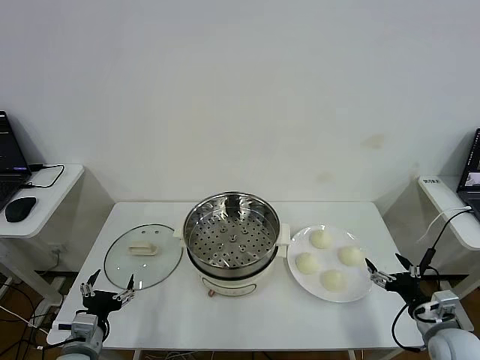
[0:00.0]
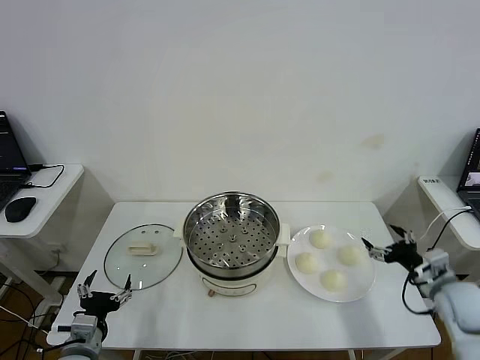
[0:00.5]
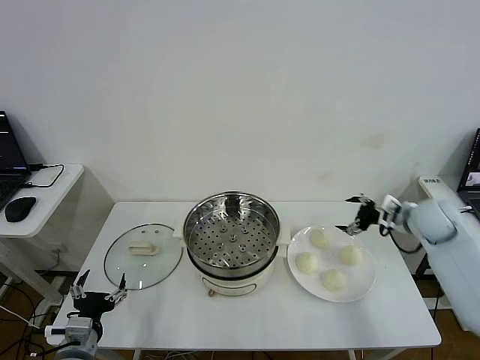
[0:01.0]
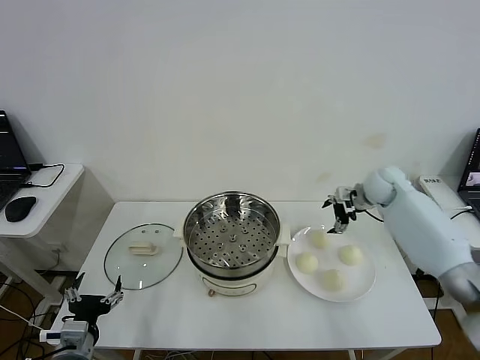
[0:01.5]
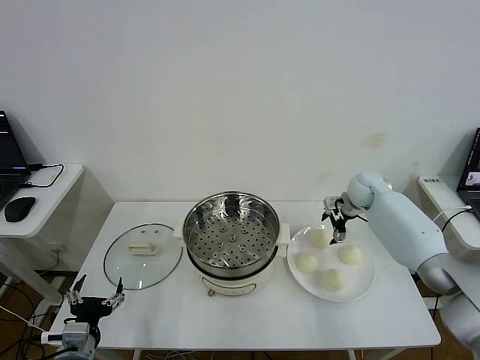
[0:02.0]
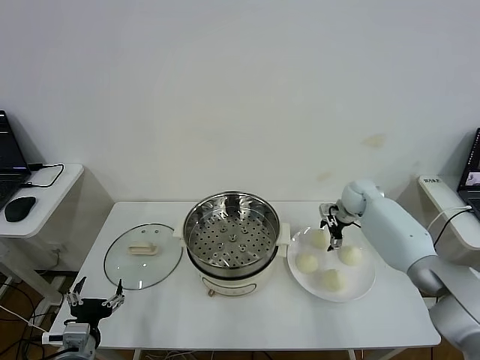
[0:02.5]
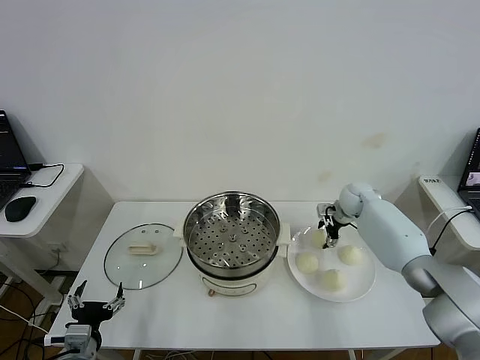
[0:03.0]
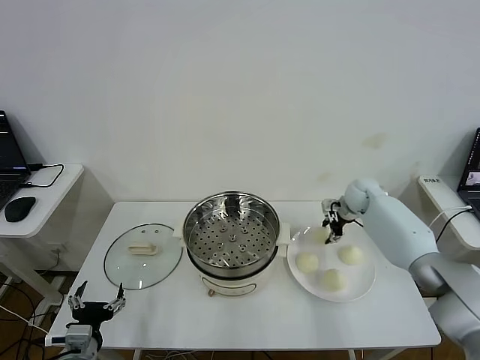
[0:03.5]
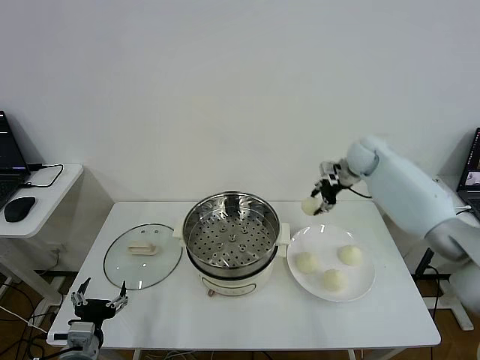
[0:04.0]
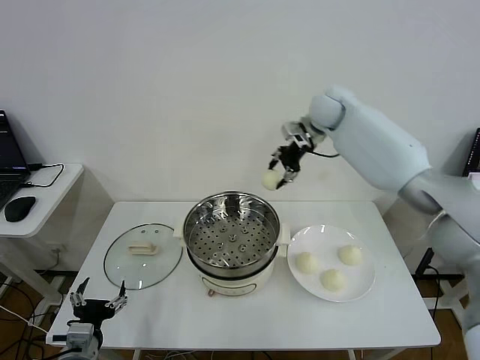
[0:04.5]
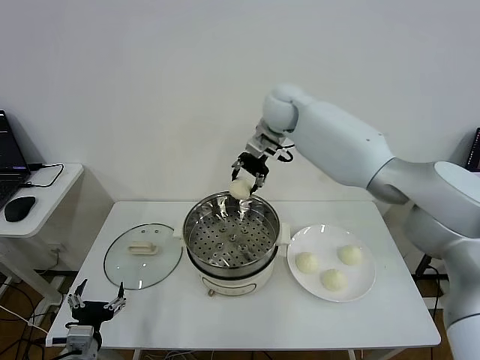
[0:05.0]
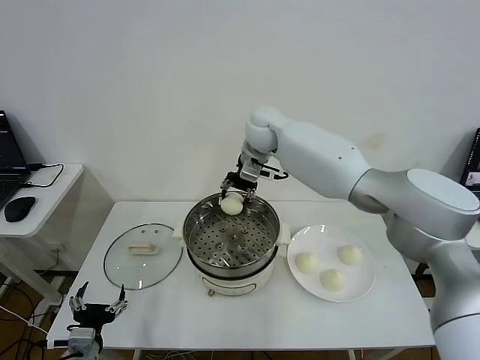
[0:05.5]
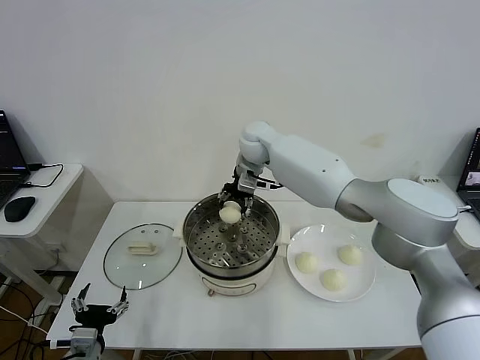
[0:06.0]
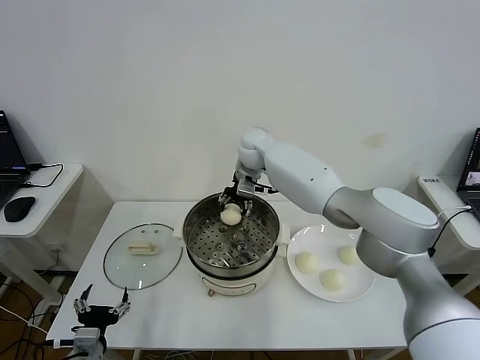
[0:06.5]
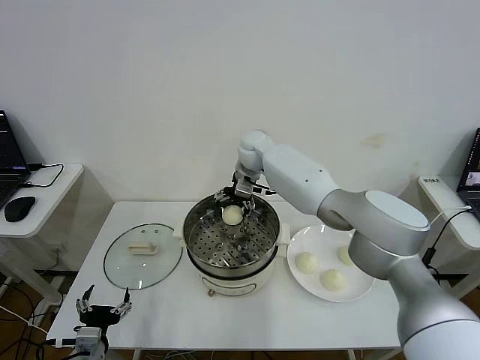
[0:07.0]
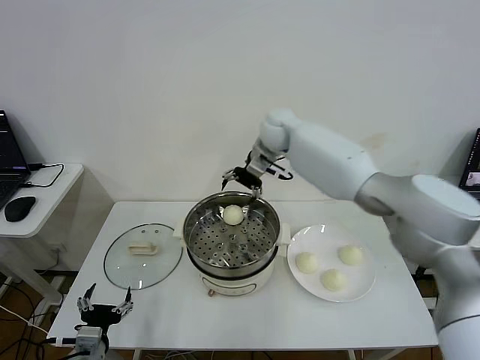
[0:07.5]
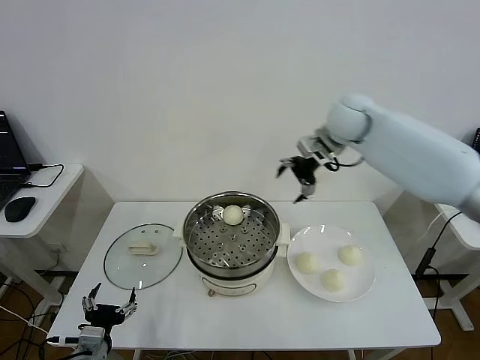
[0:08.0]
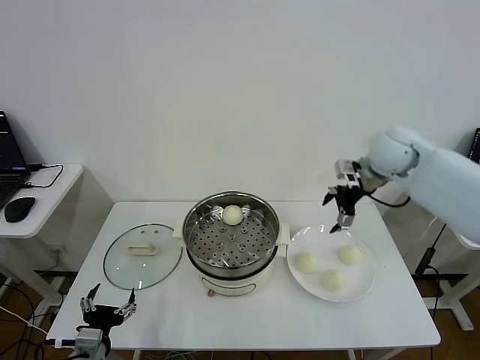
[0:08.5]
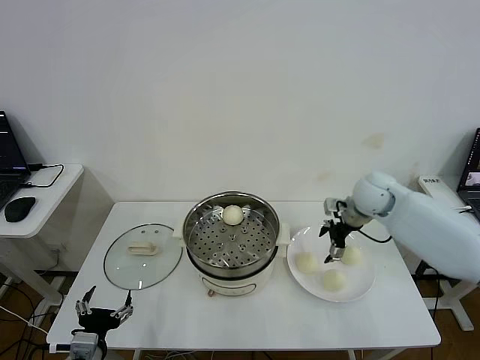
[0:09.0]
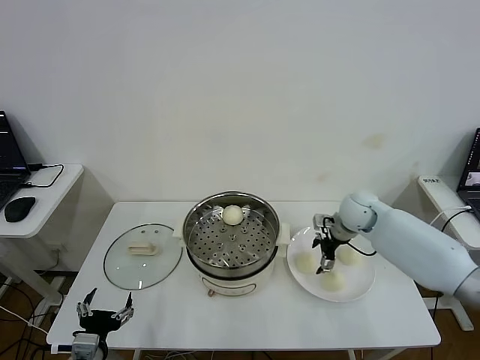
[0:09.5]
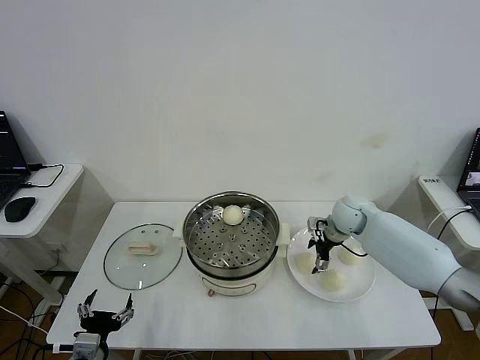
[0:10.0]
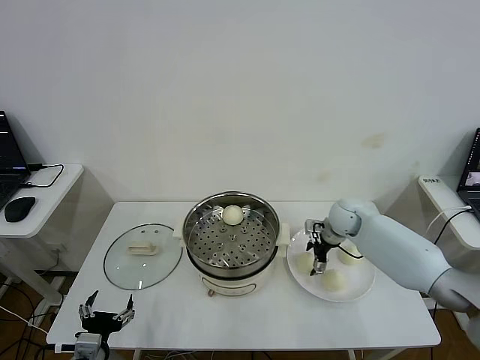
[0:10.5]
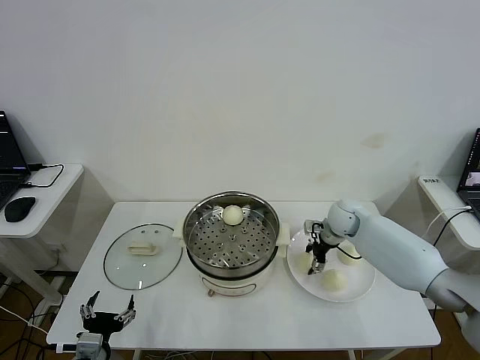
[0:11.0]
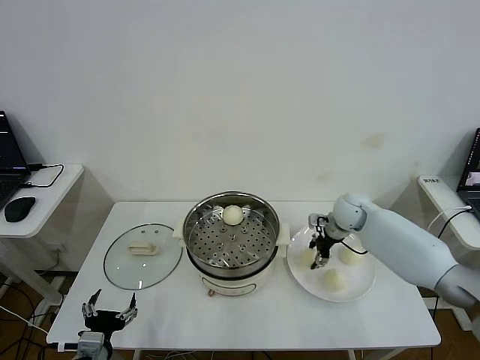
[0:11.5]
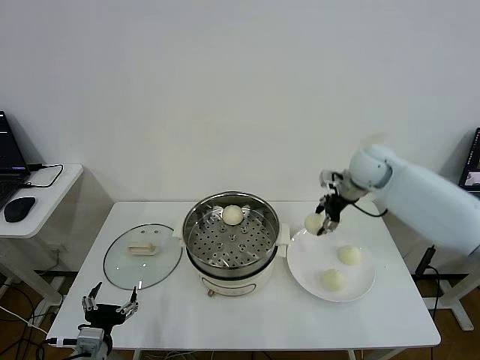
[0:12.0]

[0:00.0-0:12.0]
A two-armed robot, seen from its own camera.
Step, 0:00.0 to 0:03.0: Grasp the baozi in the plate with right gripper.
Step, 0:03.5 to 0:06.5: Place the baozi on the steamer with right gripper.
Step, 0:07.0 to 0:11.0: Grasp the baozi in the plate with right gripper.
0:02.0 to 0:04.0: The right gripper goes some 15 cm upward, and closes.
0:04.0 to 0:06.0: The right gripper is displaced to the left by approximately 25 cm.
0:06.0 to 0:08.0: The right gripper goes about 20 cm to the right, and opens up.
0:08.0 to 0:10.0: The right gripper travels downward by about 25 cm.
0:10.0 to 0:12.0: The right gripper heads upward, covering about 20 cm, and closes.

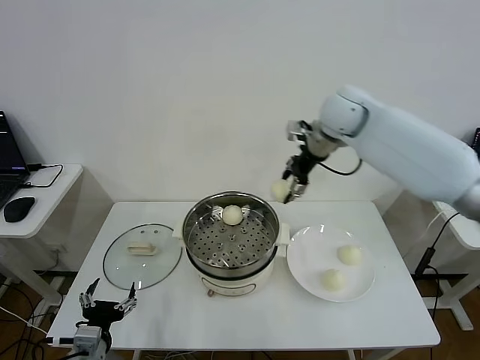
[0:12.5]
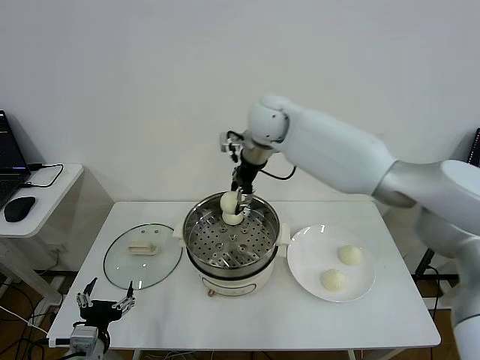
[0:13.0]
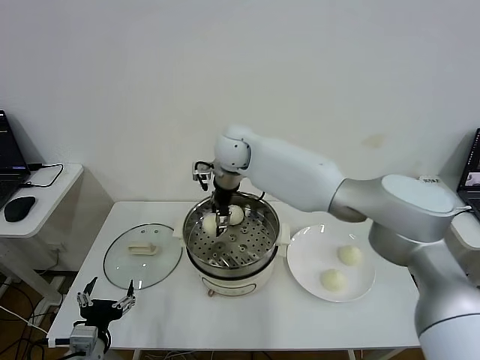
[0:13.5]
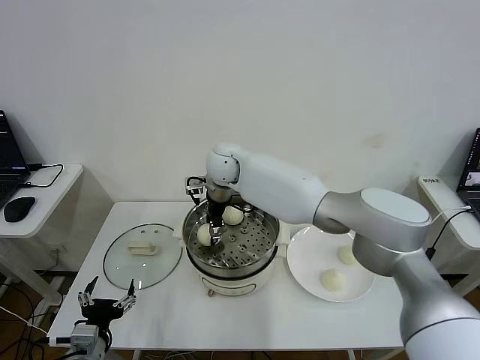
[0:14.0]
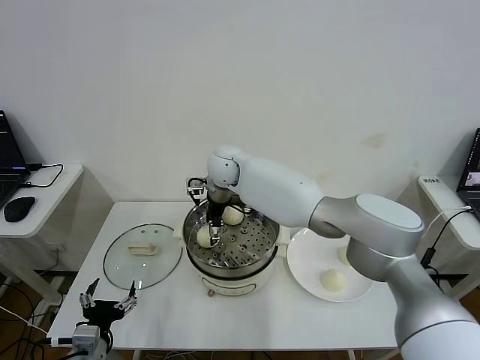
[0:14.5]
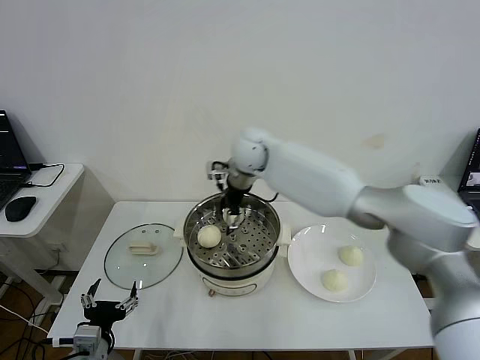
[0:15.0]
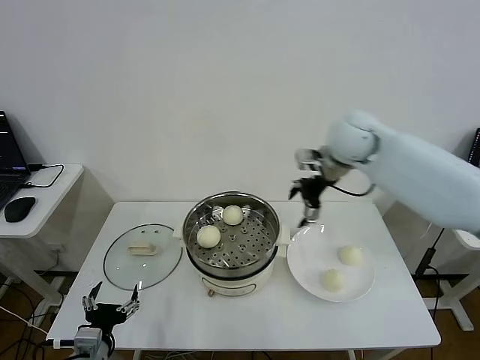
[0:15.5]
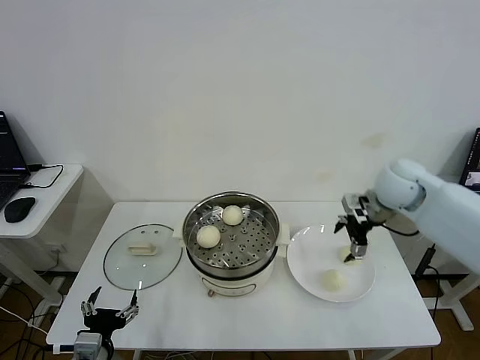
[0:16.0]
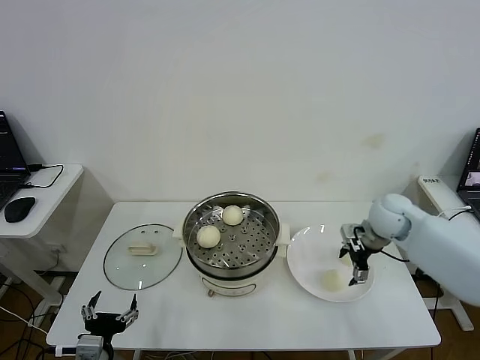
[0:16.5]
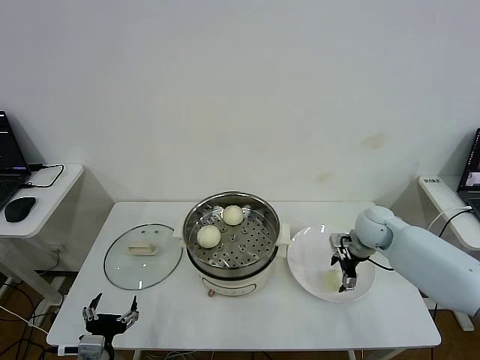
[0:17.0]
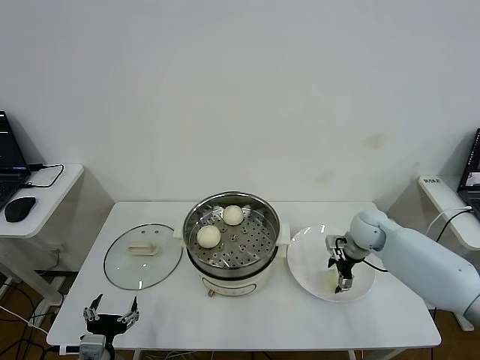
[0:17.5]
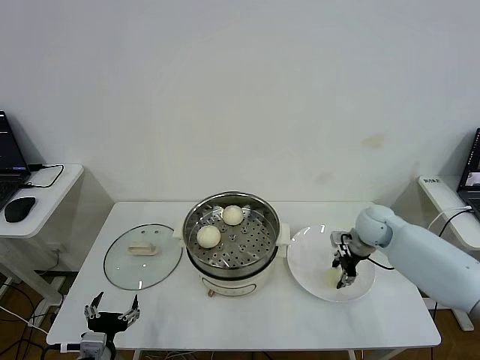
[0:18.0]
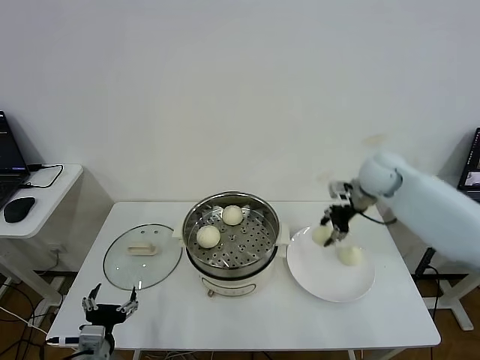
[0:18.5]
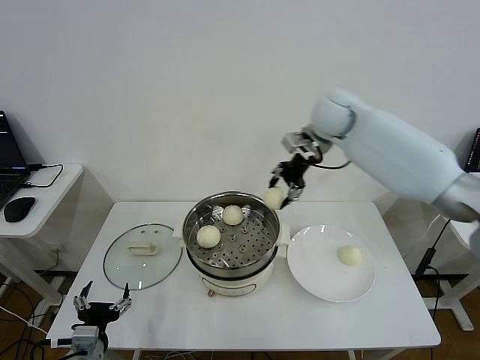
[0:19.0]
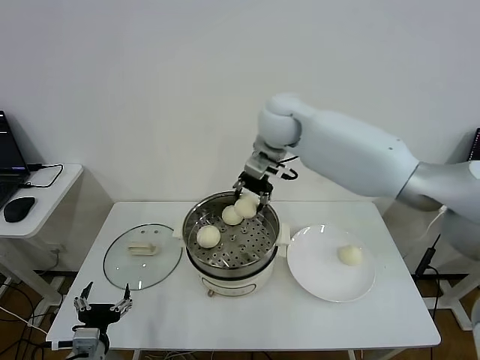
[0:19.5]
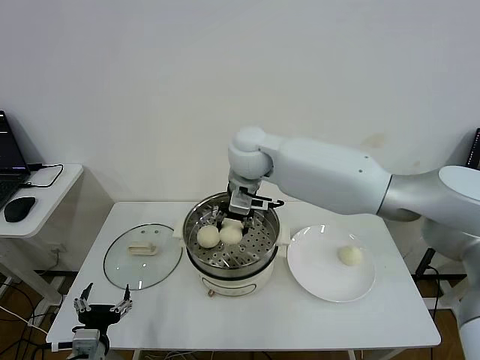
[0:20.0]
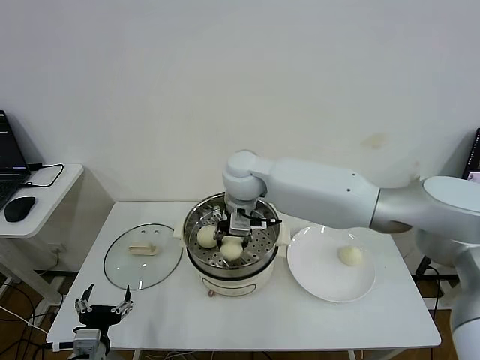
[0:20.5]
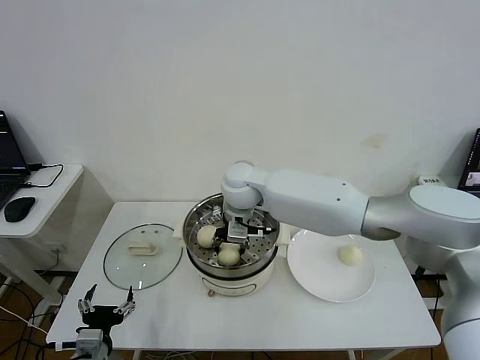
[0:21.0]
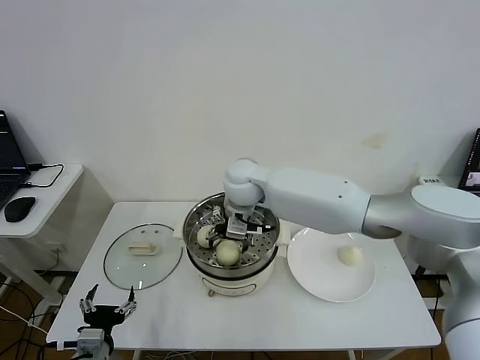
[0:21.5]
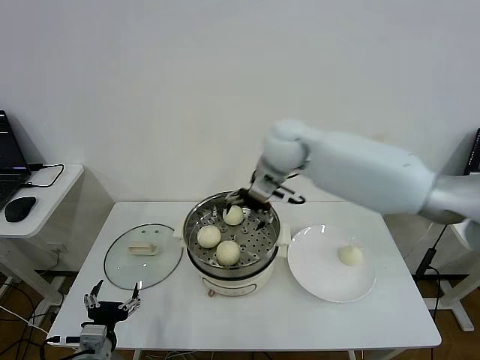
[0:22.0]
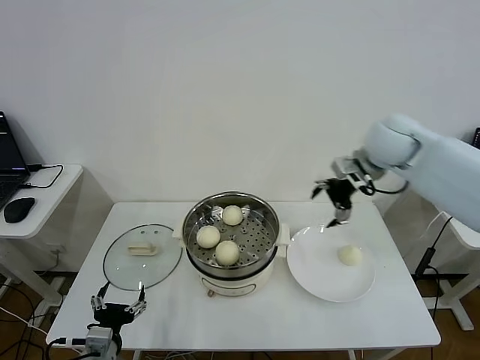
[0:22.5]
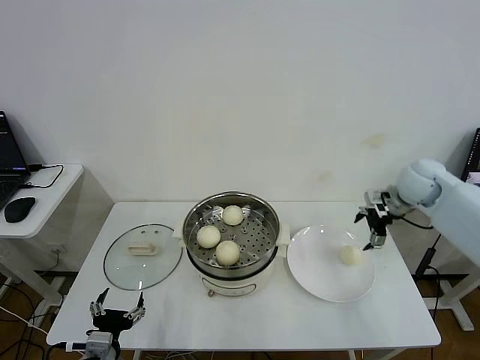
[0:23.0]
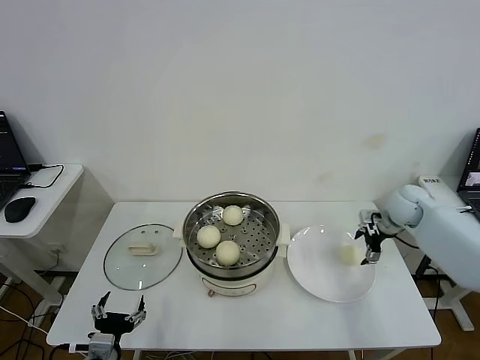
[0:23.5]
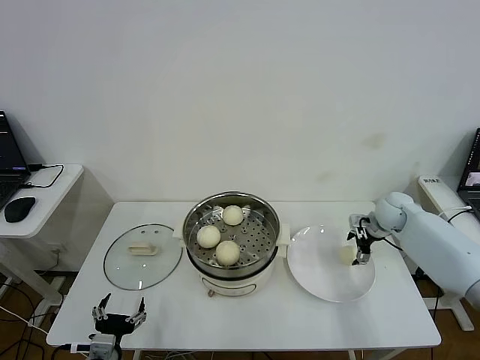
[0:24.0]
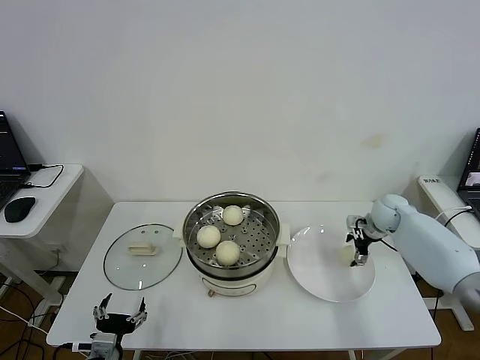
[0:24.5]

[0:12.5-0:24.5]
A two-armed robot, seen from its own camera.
Step, 0:12.5 to 0:14.5: Place the baozi on the steamer with right gripper.
Step, 0:15.0 to 0:17.5: Grasp the baozi in the plate with right gripper.
Step, 0:18.0 to 0:21.5: Place the baozi on the steamer with right gripper.
0:12.5 to 0:14.5: The right gripper travels to the left and downward by roughly 25 cm, and opens its fingers.
0:14.5 to 0:16.5: The right gripper shifts approximately 40 cm to the right.
0:16.5 to 0:18.5: The right gripper heads upward and forward, covering approximately 15 cm, and closes up.
0:18.5 to 0:20.5: The right gripper moves to the left, about 30 cm.
0:20.5 to 0:22.5: The right gripper shifts about 30 cm to the right, and opens up.
0:22.5 to 0:24.5: The right gripper moves downward, some 25 cm.

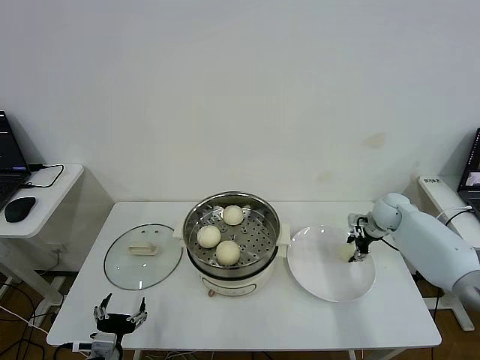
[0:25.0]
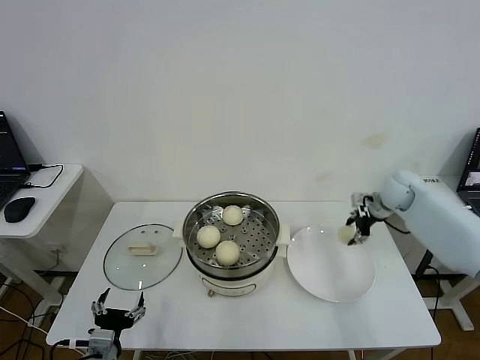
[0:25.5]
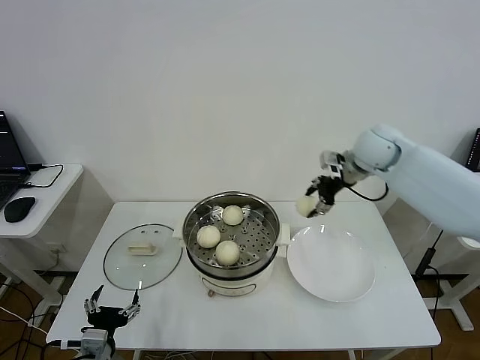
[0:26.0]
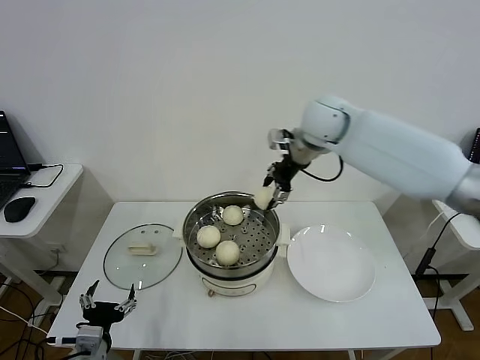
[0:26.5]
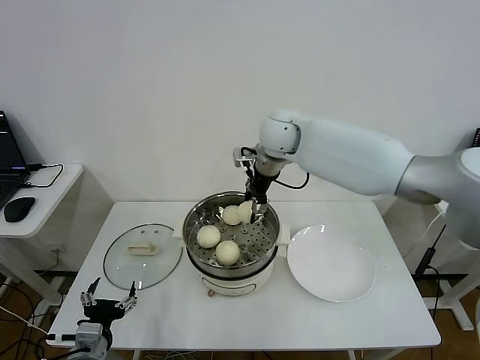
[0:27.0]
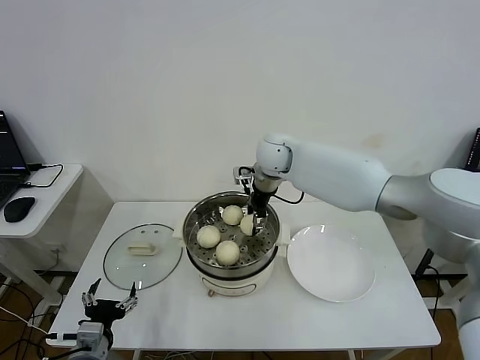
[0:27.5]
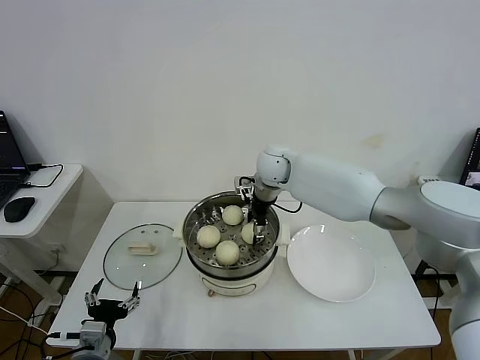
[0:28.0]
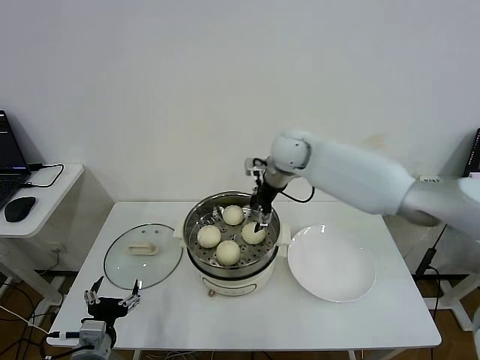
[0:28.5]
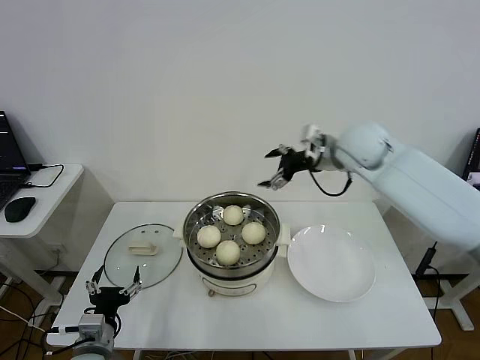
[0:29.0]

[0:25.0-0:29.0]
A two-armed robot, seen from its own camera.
Step, 0:25.5 to 0:28.0: Place the baozi on the steamer with right gripper.
0:25.0 to 0:27.0: The right gripper is displaced to the left and upward by roughly 40 cm.
0:27.0 to 0:29.0: The right gripper goes roughly 15 cm to the right, and opens.
